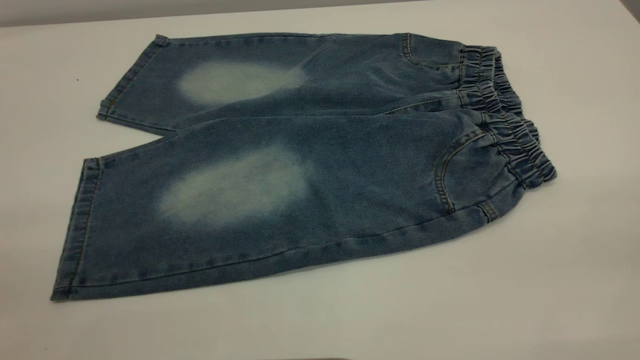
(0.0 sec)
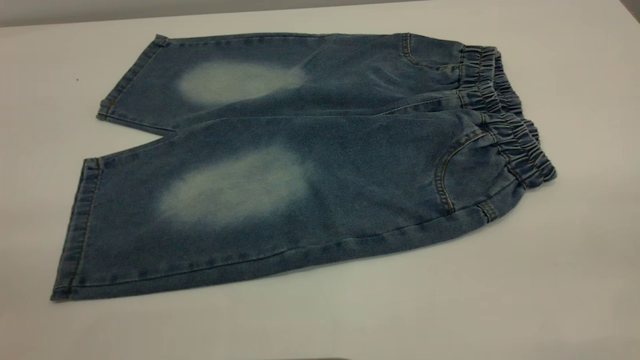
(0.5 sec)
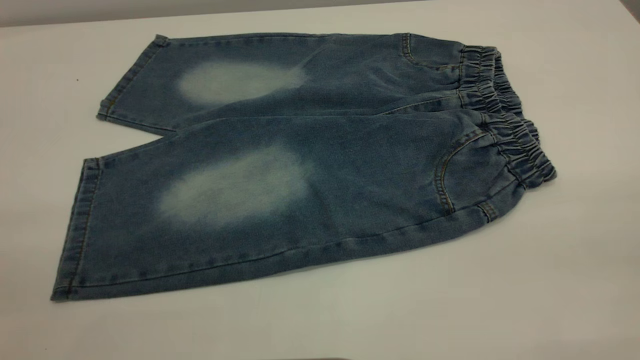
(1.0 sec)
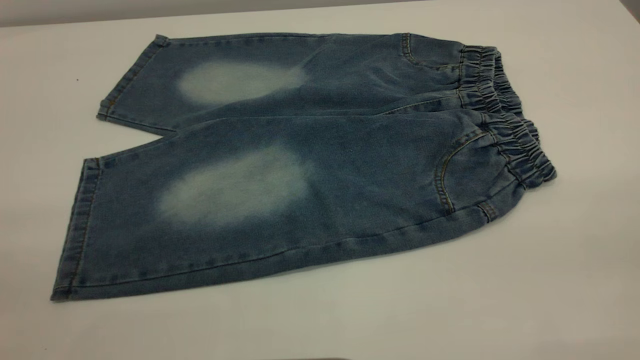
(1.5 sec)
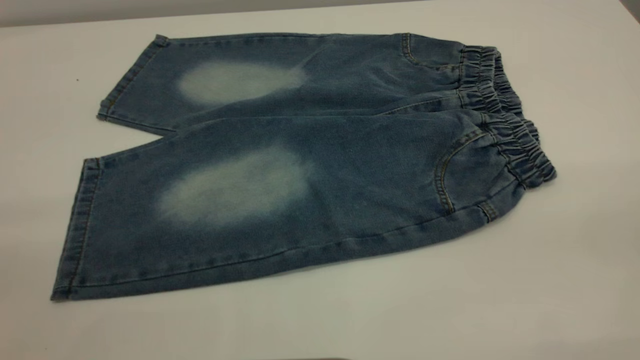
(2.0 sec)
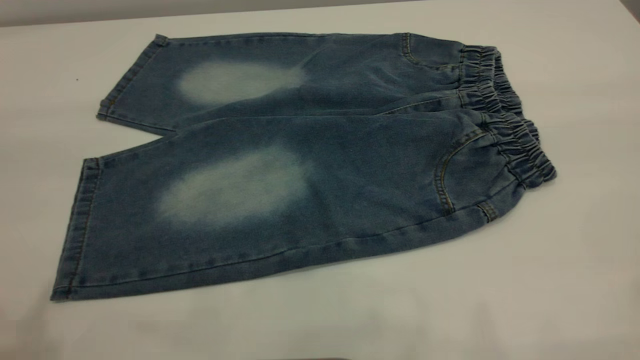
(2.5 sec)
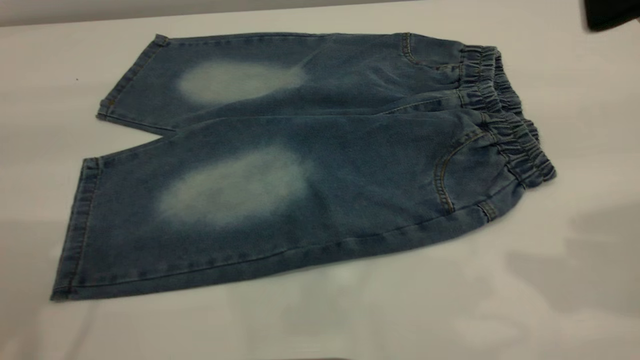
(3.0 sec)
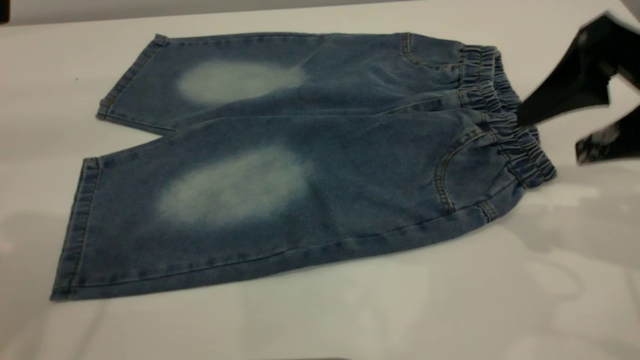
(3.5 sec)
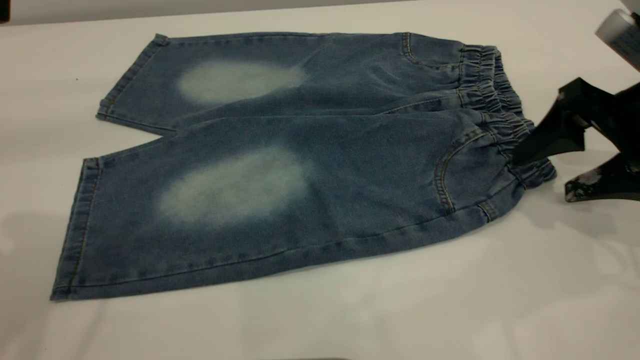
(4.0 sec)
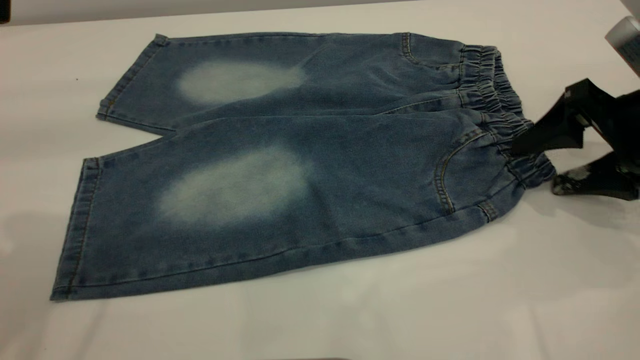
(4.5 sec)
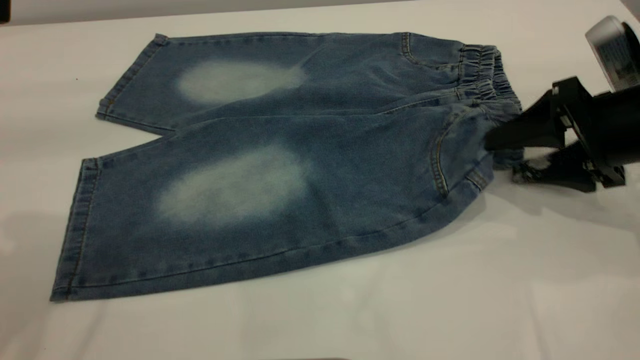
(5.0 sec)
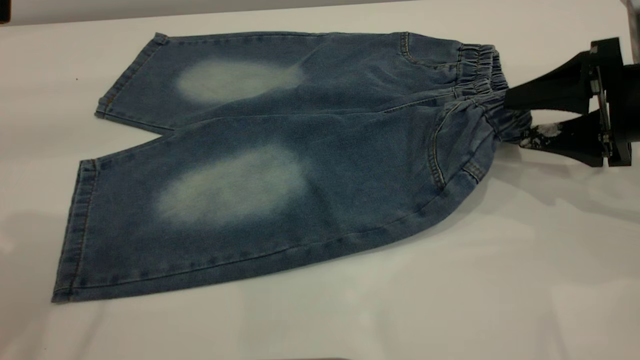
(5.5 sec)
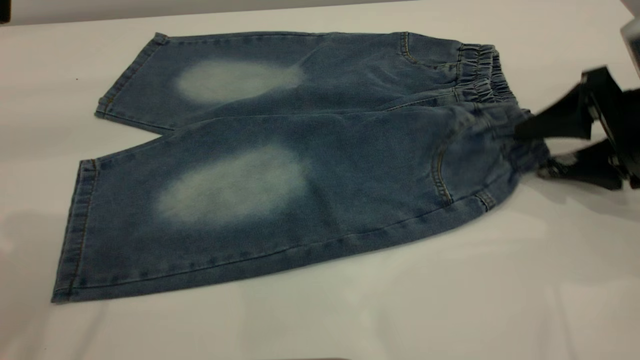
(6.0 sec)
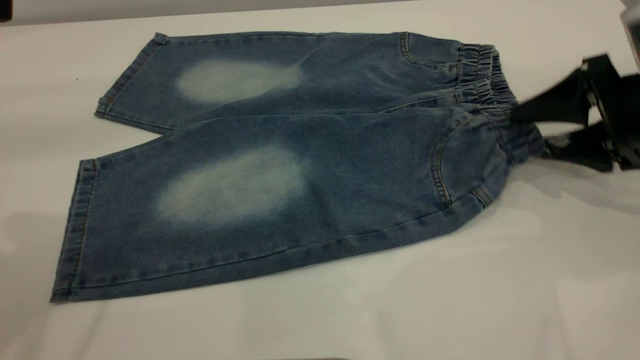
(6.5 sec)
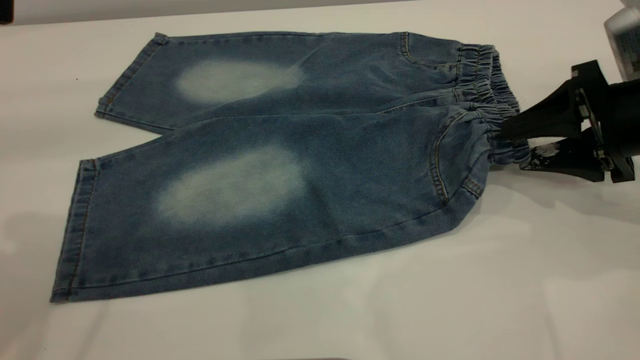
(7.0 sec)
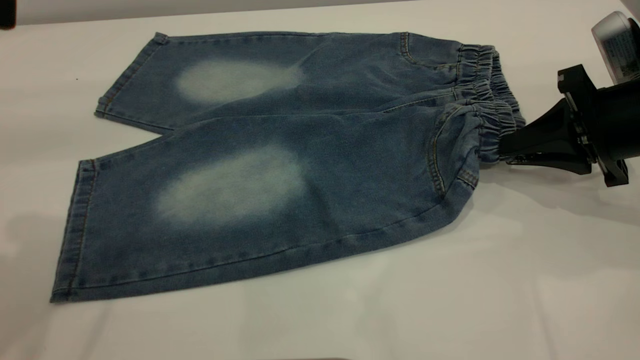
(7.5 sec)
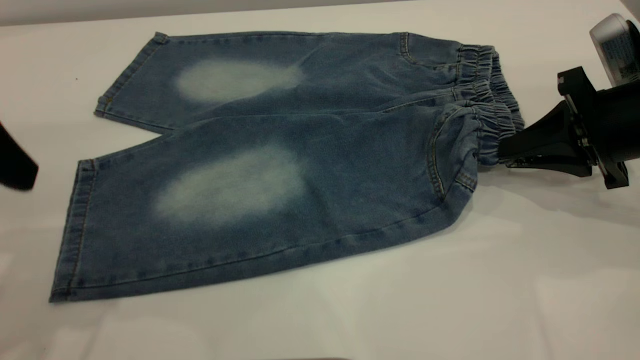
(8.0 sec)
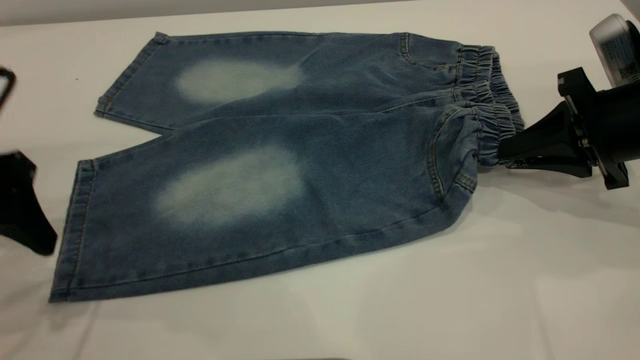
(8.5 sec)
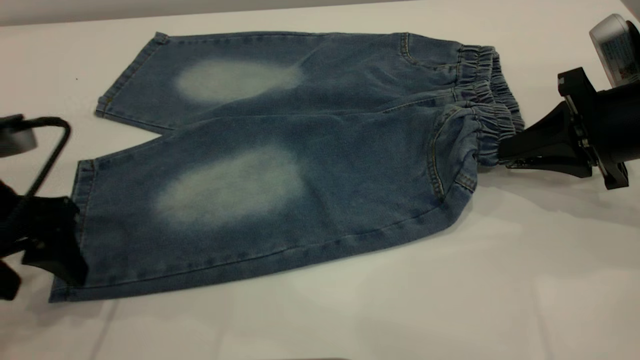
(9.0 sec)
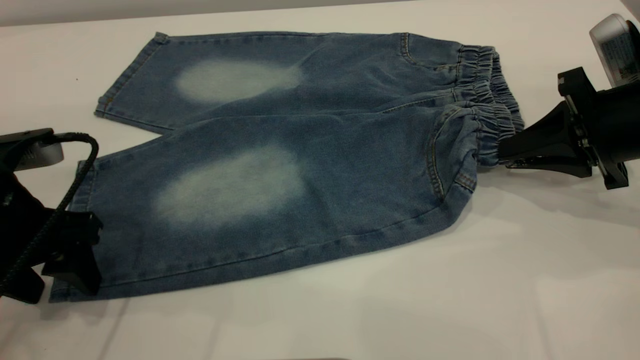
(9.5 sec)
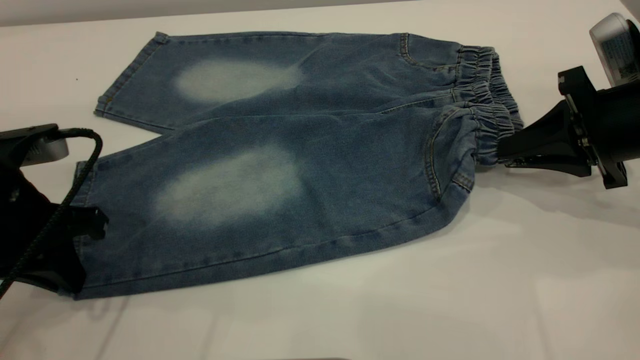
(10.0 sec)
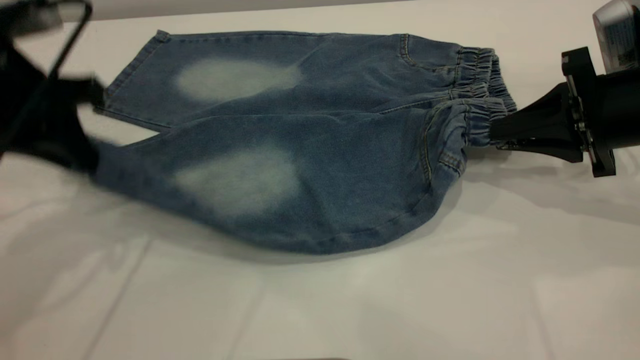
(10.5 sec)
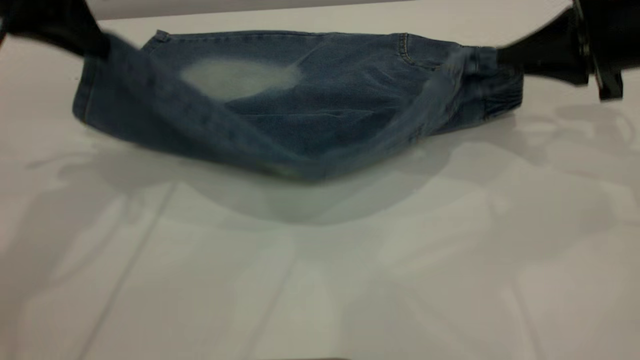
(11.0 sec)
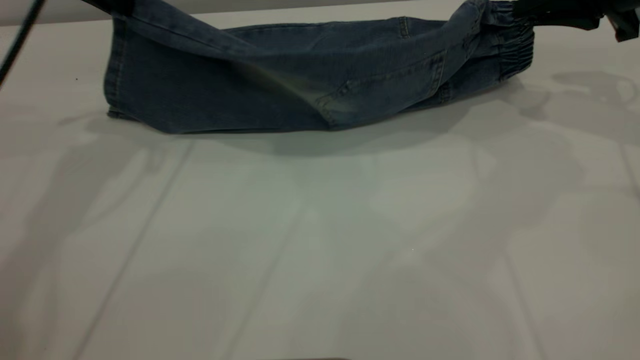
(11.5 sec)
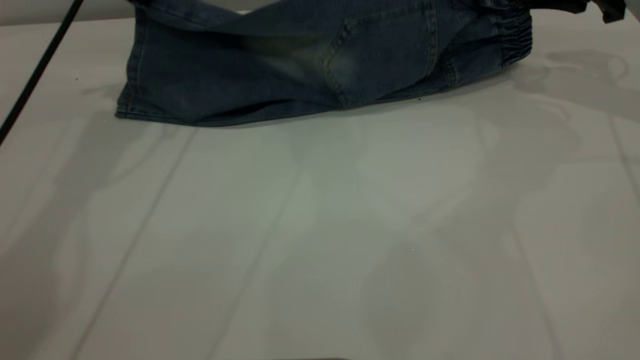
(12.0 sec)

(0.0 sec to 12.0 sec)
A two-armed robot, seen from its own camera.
2.0 sec - 4.0 sec: The right gripper heads forward and downward, covering roughly 35 cm.
6.0 sec - 8.0 sec: The left gripper moves downward, roughly 10 cm; the right gripper closes.
8.0 sec - 10.0 sec: The left gripper moves downward, approximately 10 cm, and closes up.
10.0 sec - 12.0 sec: The right gripper heads forward and upward, covering some 15 cm. The left gripper shifts about 25 cm forward and upward.

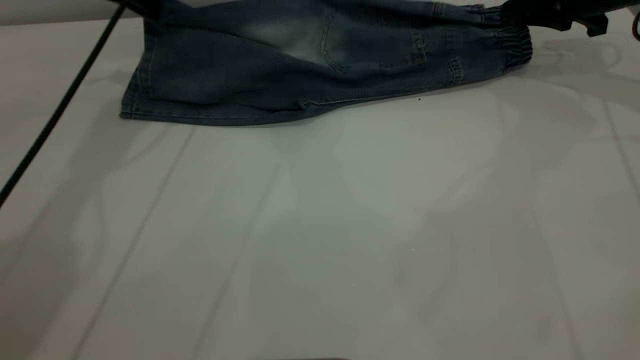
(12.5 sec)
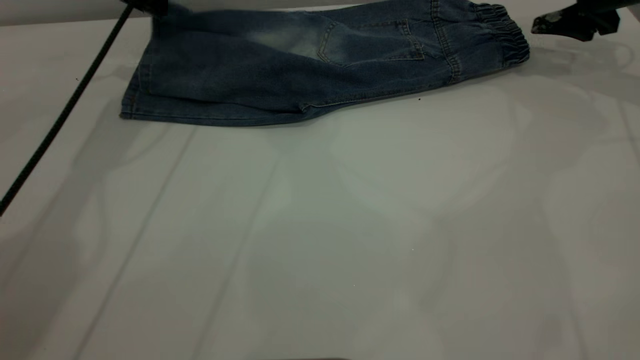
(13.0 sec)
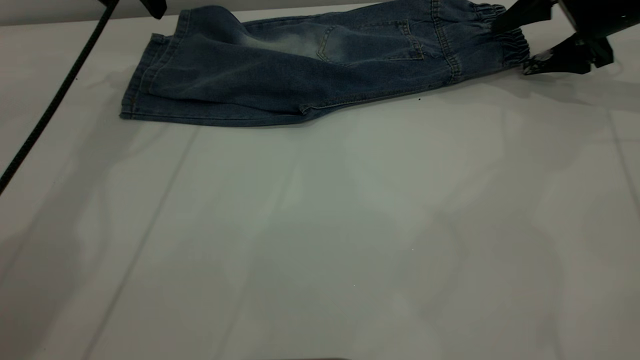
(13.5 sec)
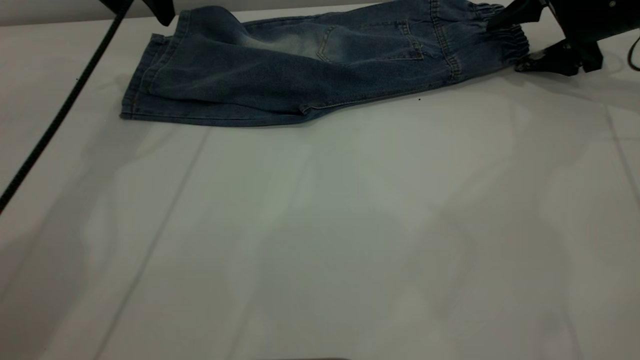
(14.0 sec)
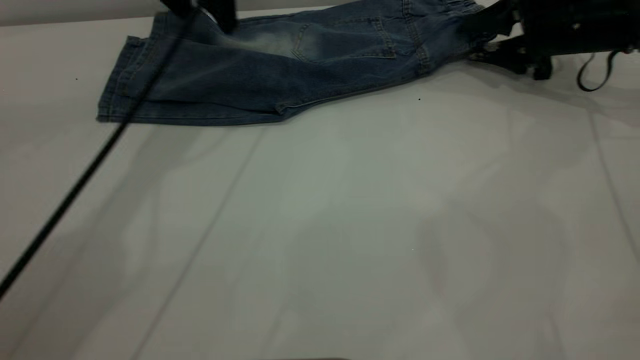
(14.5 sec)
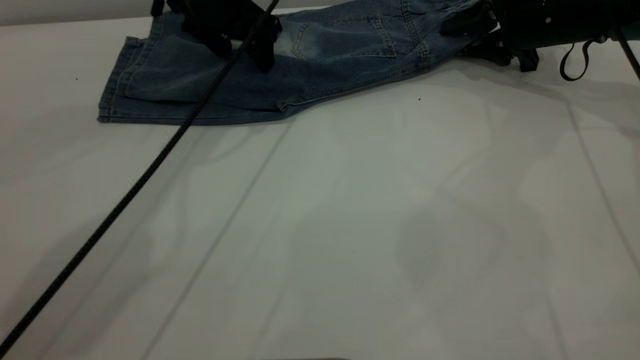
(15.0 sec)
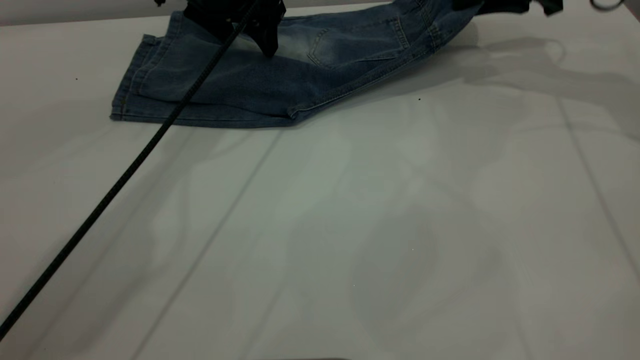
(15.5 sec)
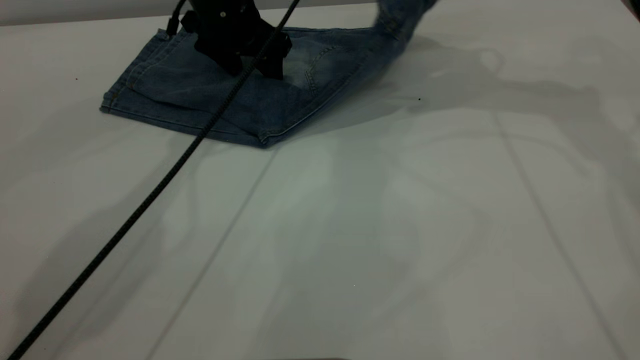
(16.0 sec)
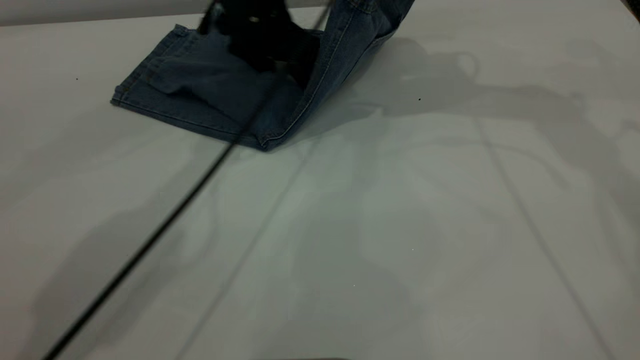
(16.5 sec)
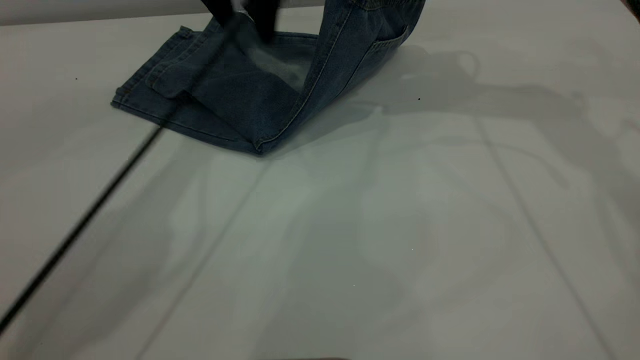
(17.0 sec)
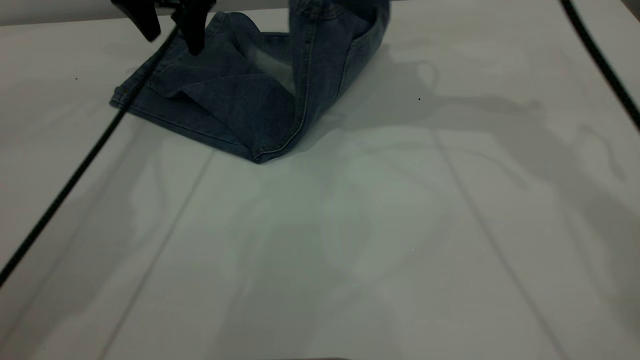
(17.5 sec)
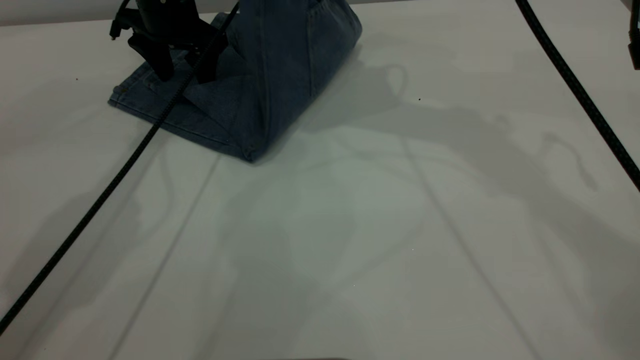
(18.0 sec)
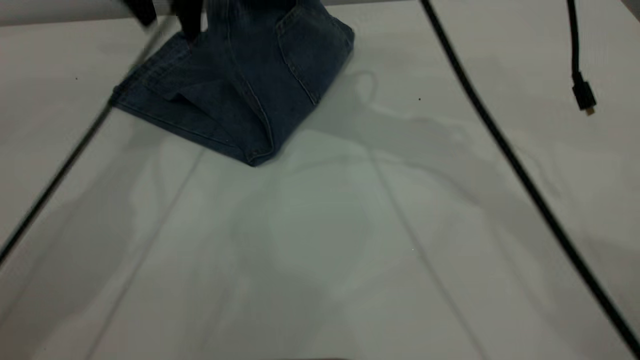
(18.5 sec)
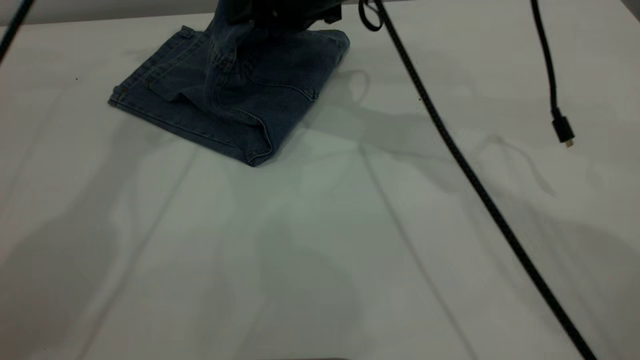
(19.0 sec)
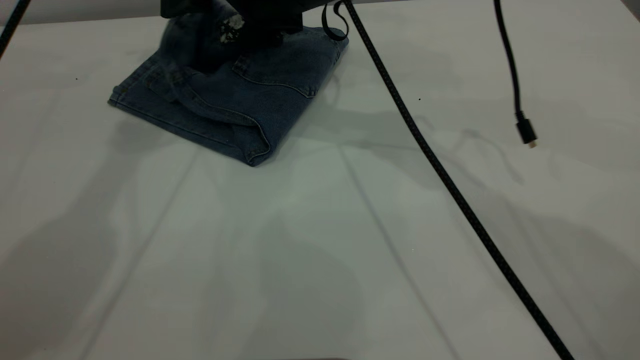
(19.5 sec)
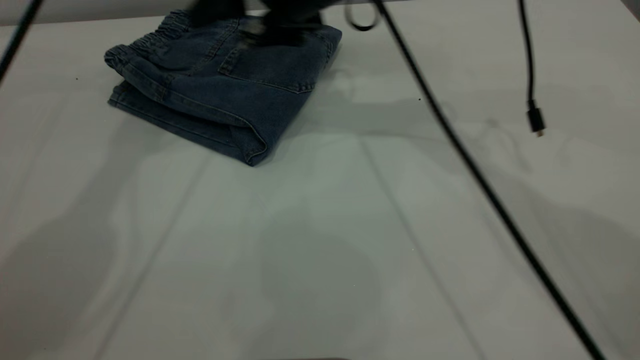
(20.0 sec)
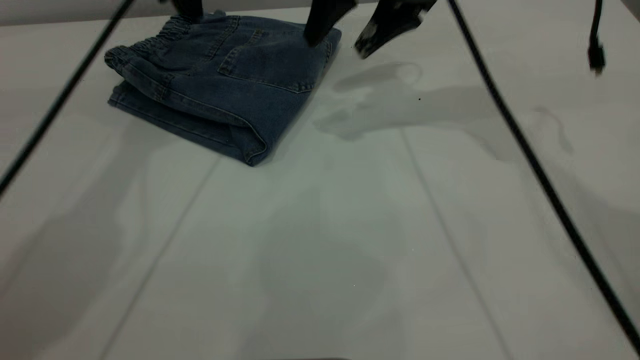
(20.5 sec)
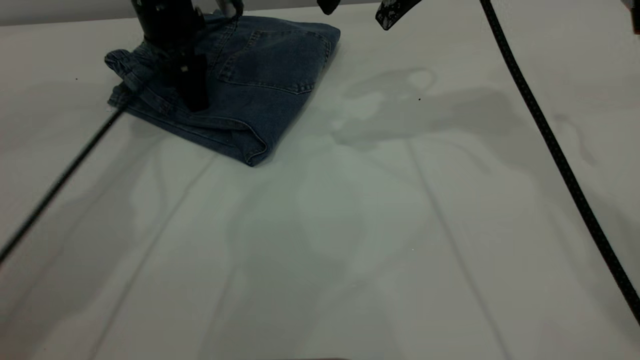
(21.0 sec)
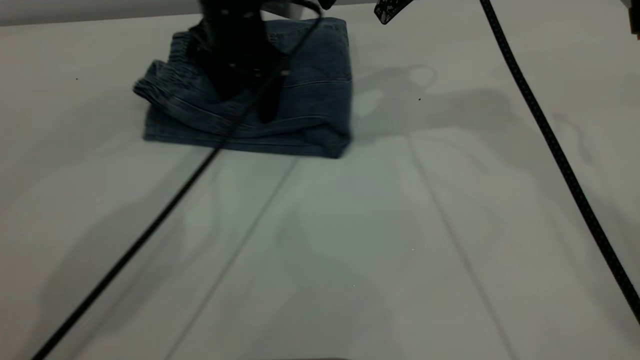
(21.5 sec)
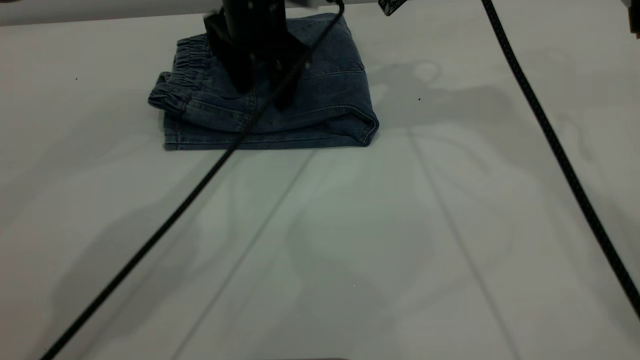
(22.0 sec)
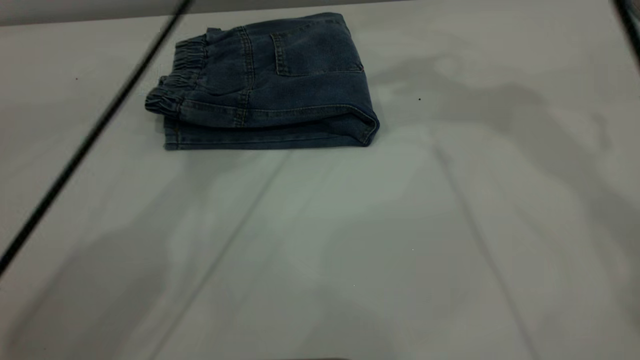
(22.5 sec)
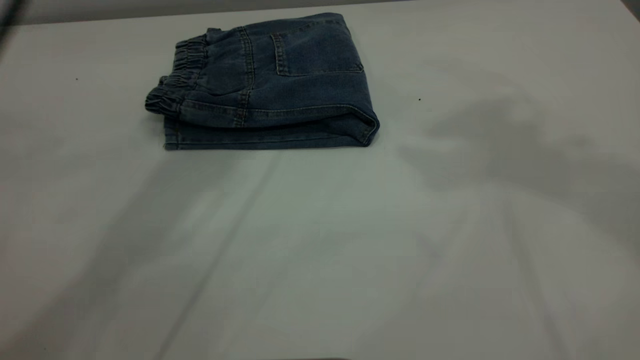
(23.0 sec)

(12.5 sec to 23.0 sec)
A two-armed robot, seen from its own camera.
Step, 13.5 sec - 20.0 sec: Fold your pants from right to left.
12.5 sec - 14.5 sec: The right gripper travels downward by about 5 cm, and opens; the left gripper moves to the right, approximately 10 cm, and opens up.
14.5 sec - 16.5 sec: The right gripper moves upward and to the left, some 25 cm, and closes its fingers; the left gripper shifts approximately 10 cm downward and to the right.
16.5 sec - 19.0 sec: The left gripper goes up and down, approximately 25 cm each way, reversing 2 times. The right gripper travels to the left and downward by some 15 cm.
19.0 sec - 21.0 sec: The left gripper moves downward, about 20 cm; the right gripper heads to the right and upward, covering roughly 10 cm, and opens up.
21.0 sec - 23.0 sec: The two grippers go roughly 30 cm upward and backward.
